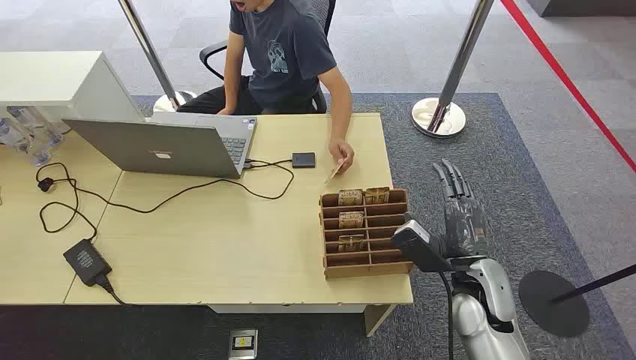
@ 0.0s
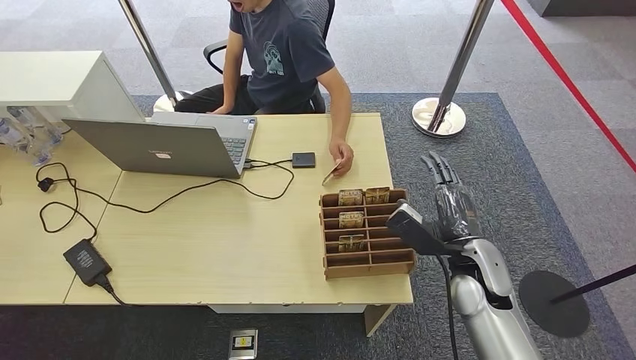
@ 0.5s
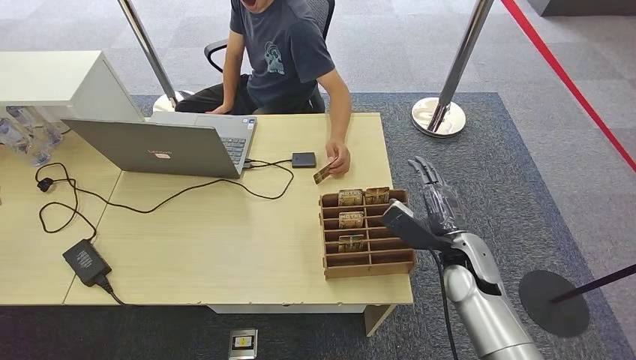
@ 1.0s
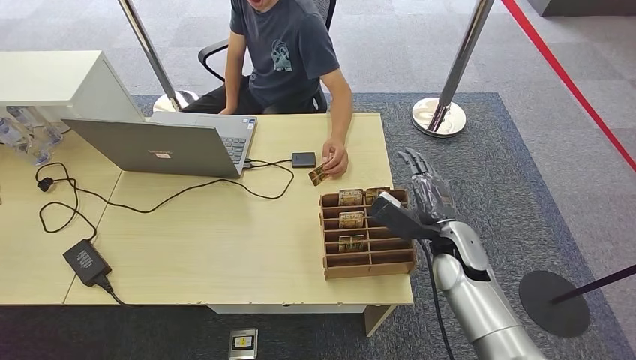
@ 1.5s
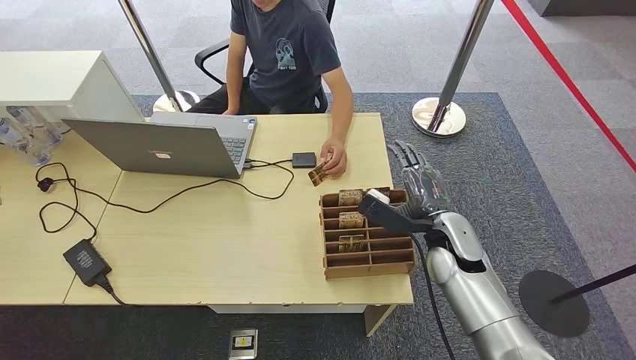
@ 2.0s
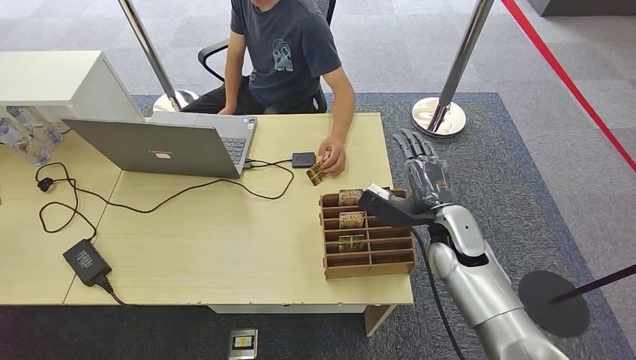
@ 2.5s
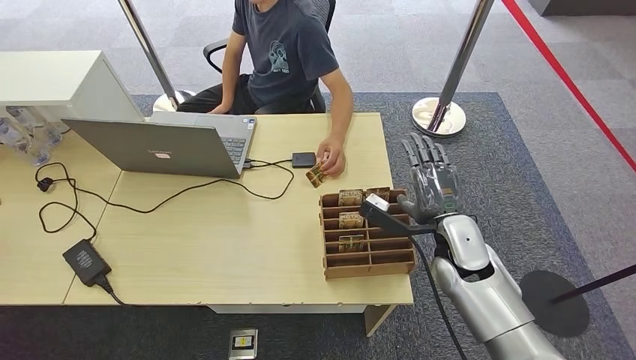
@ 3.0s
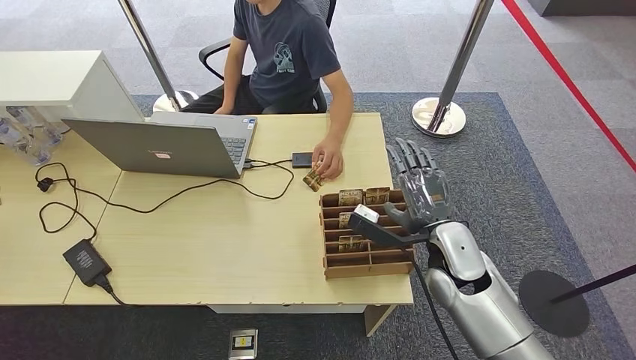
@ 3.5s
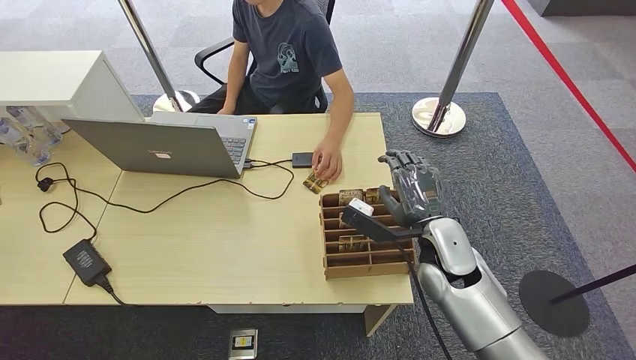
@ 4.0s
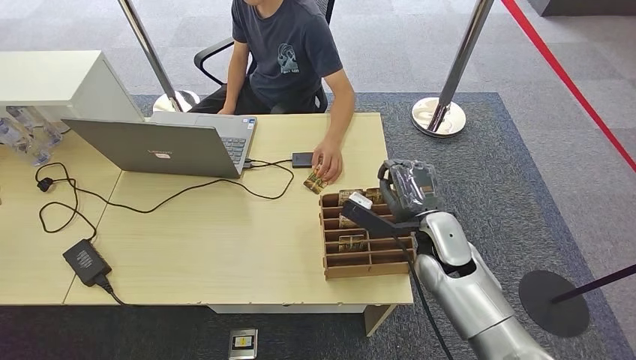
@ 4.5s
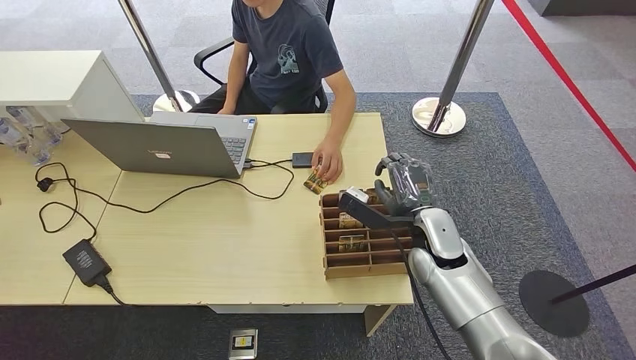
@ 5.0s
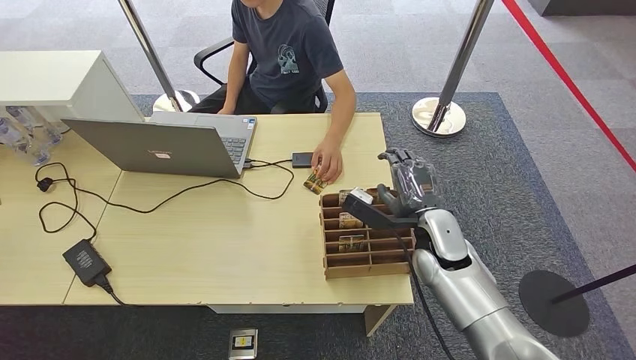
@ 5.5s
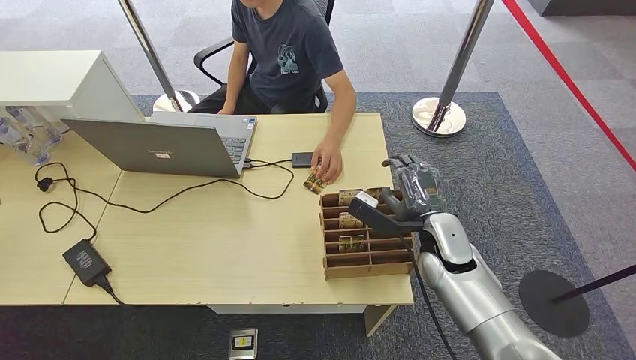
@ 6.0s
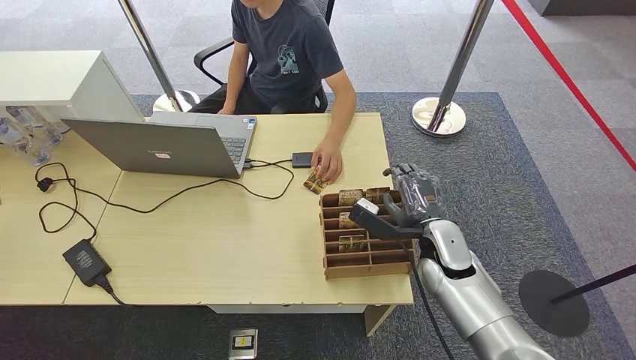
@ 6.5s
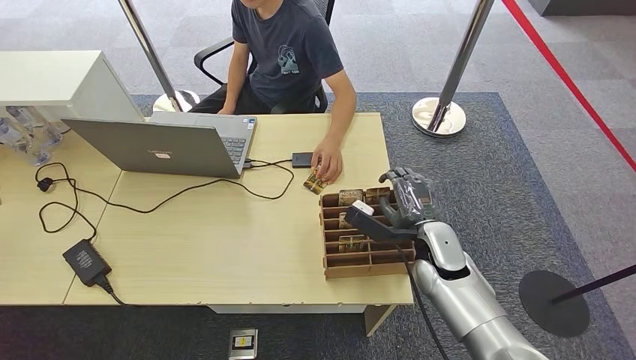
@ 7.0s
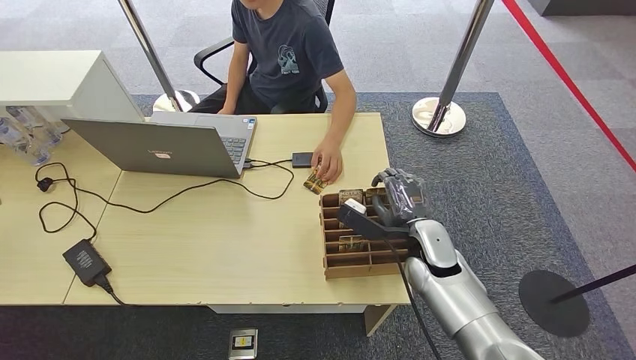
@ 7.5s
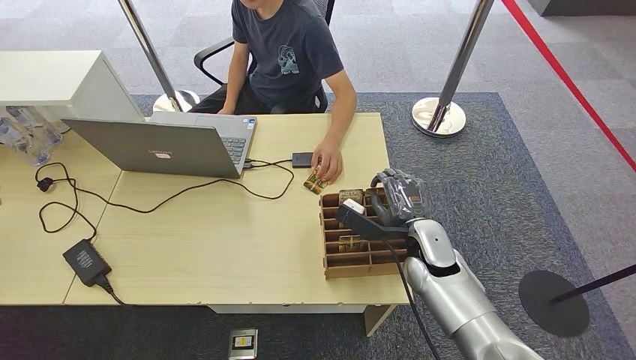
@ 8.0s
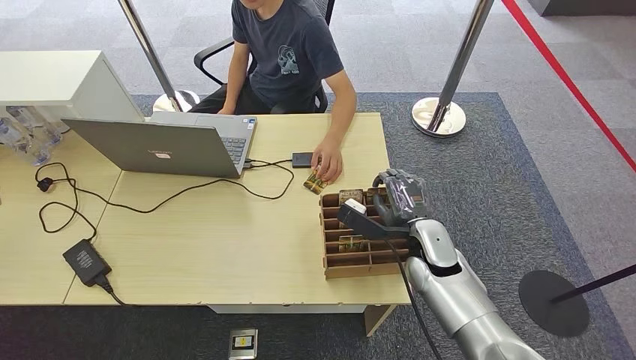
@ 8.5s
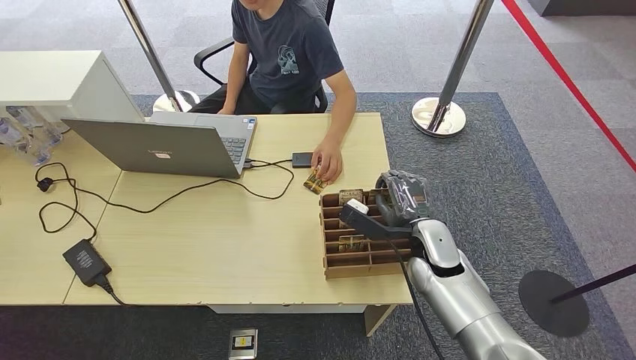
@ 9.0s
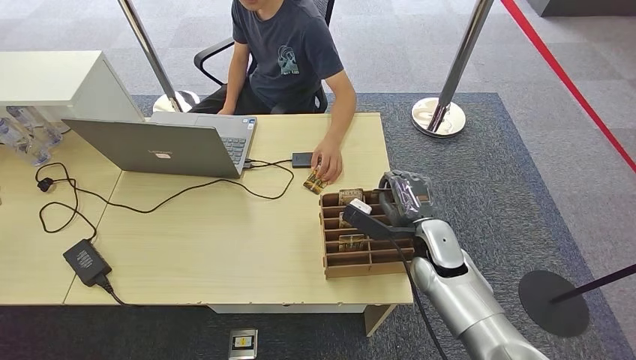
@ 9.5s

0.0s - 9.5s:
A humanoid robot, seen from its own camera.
2.0s - 7.5s: There are only small adjustments of the hands.
7.5s - 9.5s: Both hands stay put.

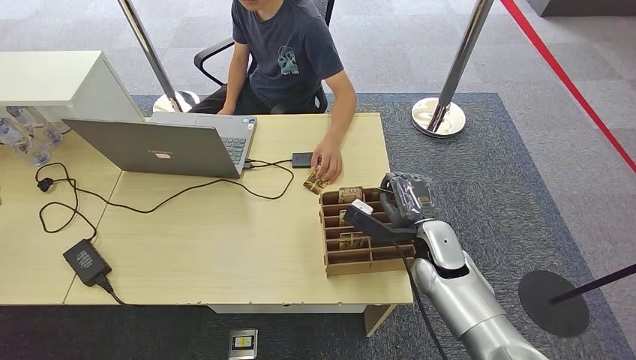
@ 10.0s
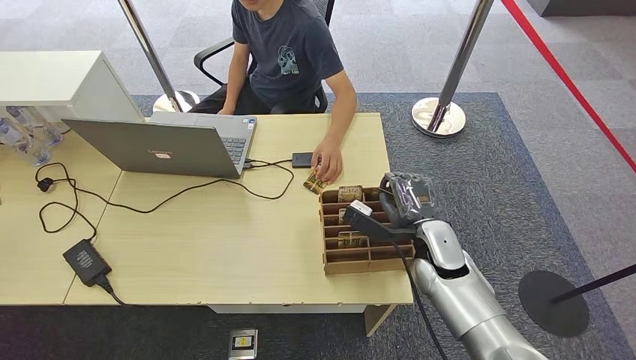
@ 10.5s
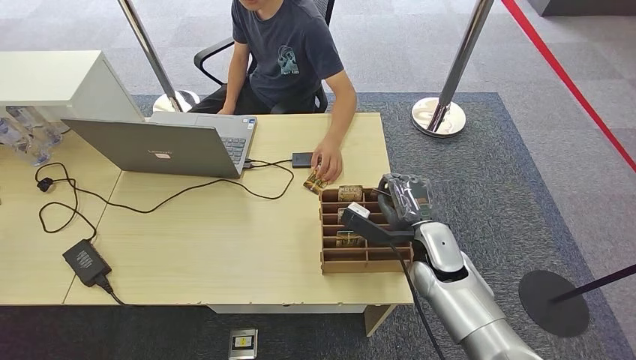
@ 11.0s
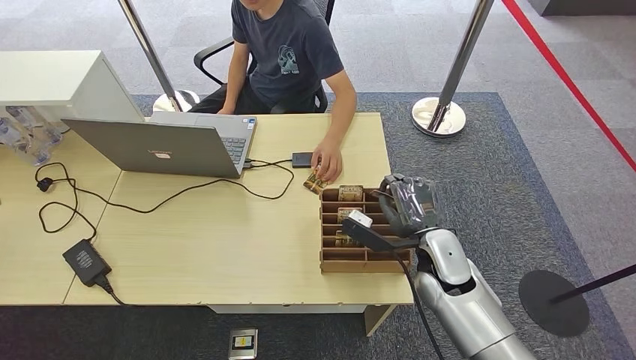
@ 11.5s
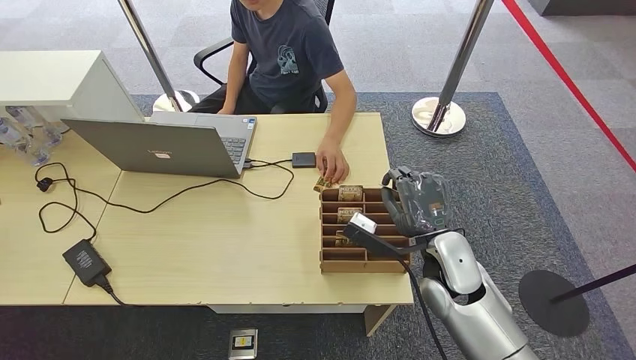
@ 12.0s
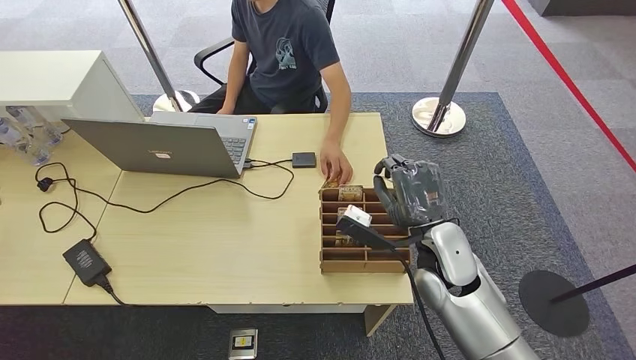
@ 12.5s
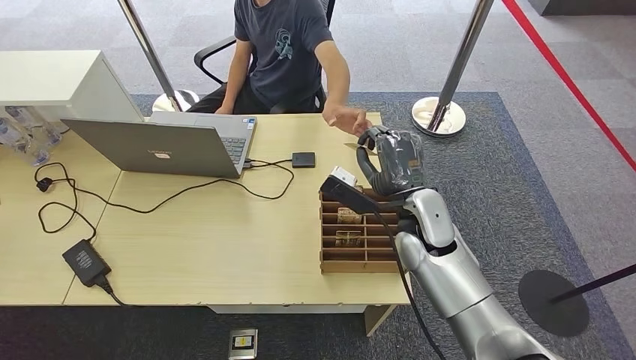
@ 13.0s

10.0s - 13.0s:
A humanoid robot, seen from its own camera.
Step, 11.5s - 13.0s: Hand the key card to the target.
10.0s - 11.5s: The hands make only small movements.
11.5s - 13.0s: The right hand is displaced upward by about 5 cm.

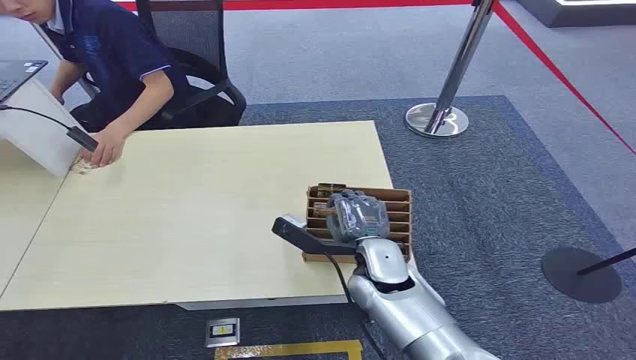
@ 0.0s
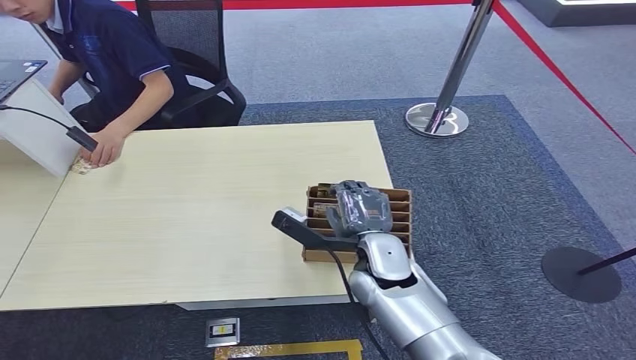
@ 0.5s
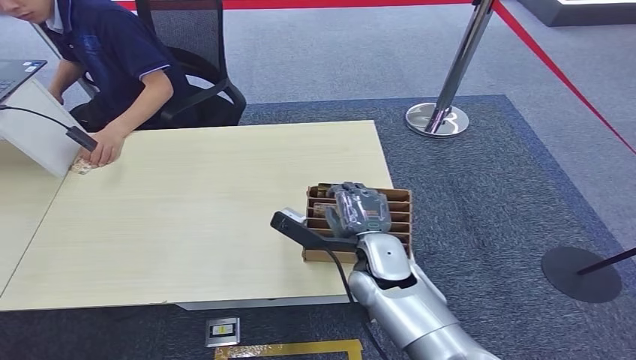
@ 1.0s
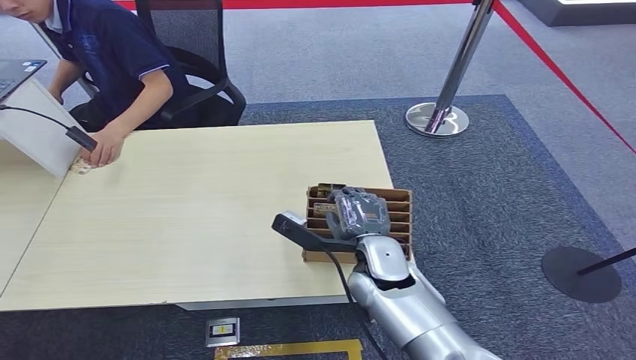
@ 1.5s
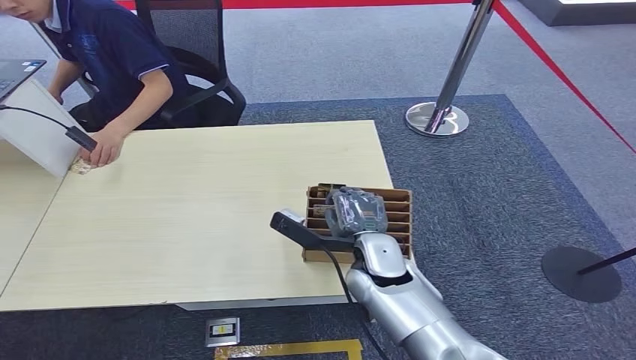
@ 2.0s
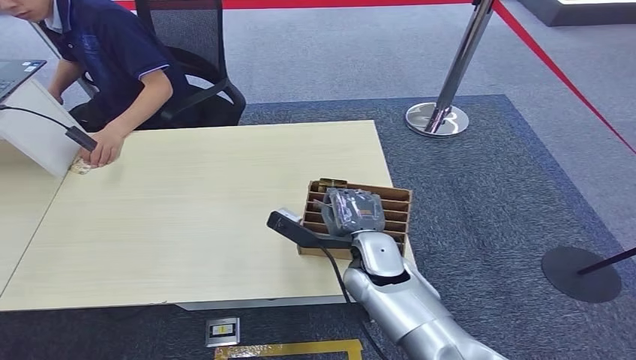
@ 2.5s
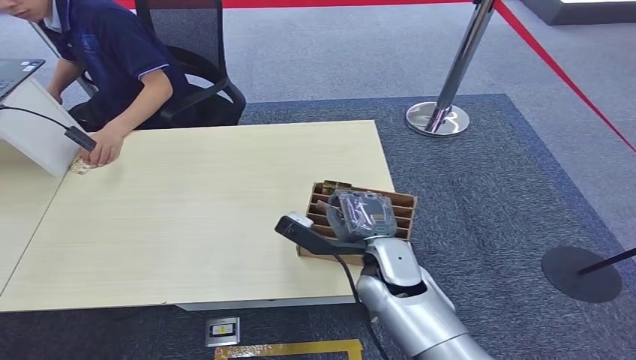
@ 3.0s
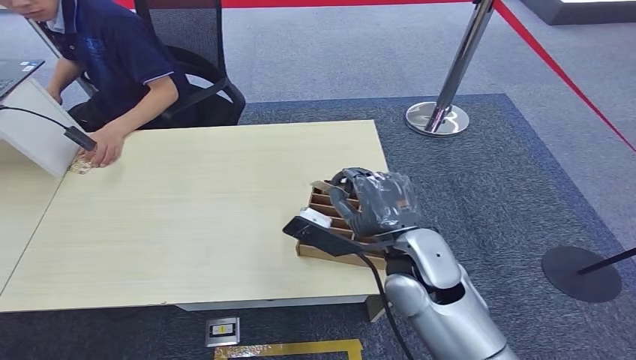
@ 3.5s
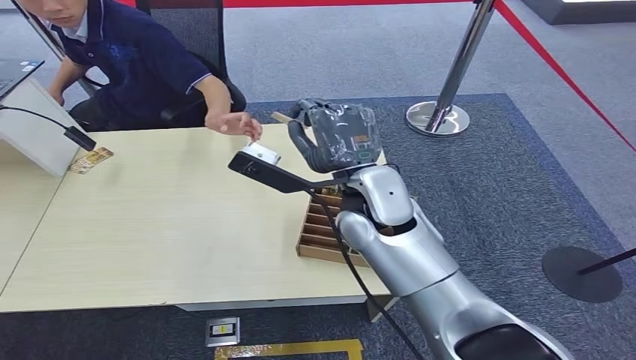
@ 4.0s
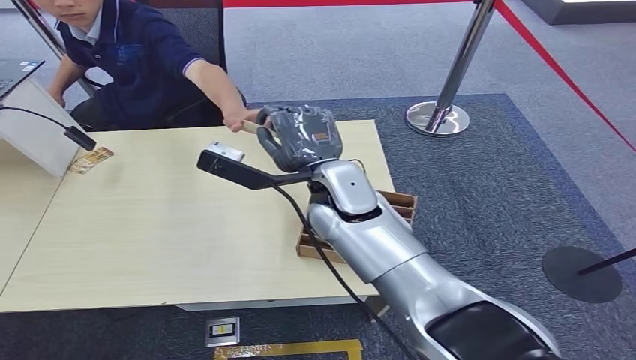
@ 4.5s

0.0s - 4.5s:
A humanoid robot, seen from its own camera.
Step, 0.0s - 3.5s: Pick up the key card from the card box.
Step, 4.0s - 4.5s: Hand the key card to the target.
2.0s - 4.5s: The right hand heads upward, forward and to the left, covering some 20 cm.
